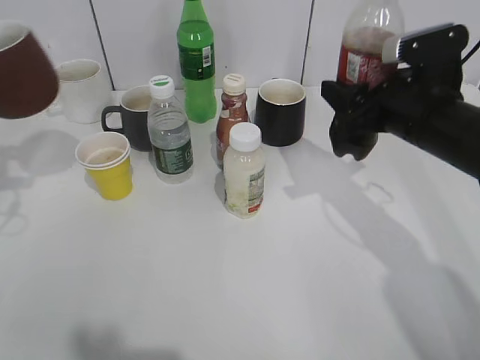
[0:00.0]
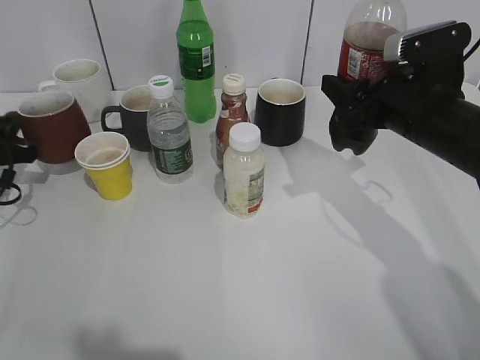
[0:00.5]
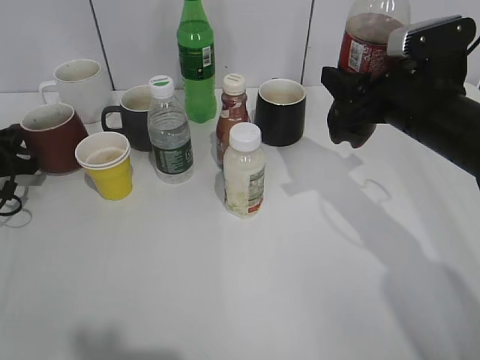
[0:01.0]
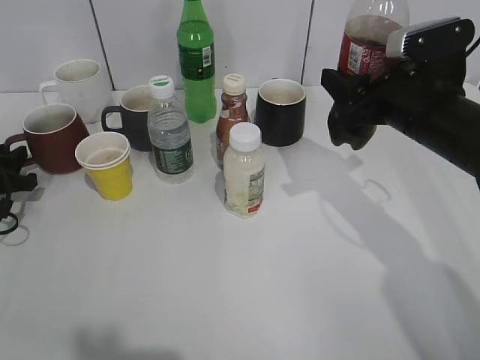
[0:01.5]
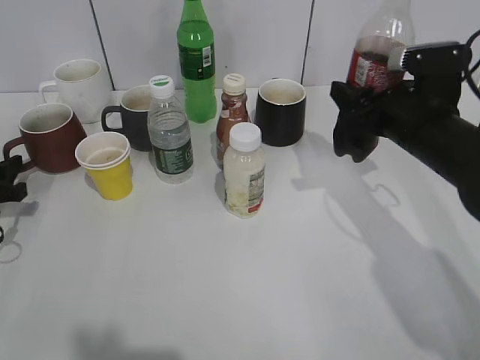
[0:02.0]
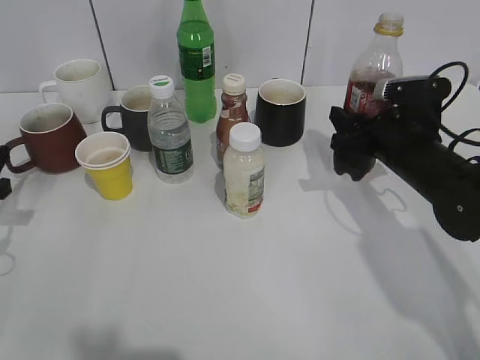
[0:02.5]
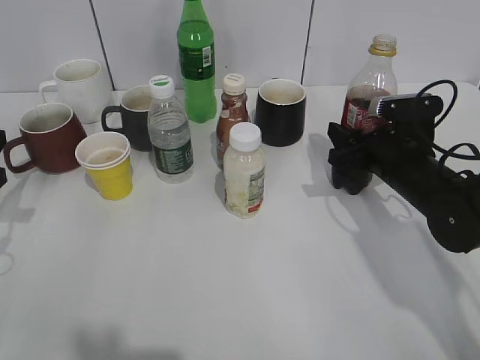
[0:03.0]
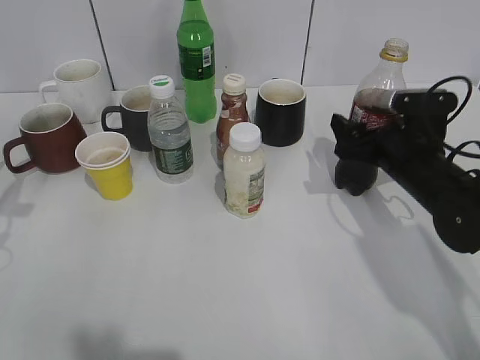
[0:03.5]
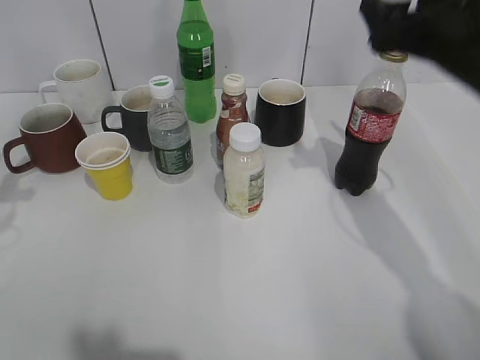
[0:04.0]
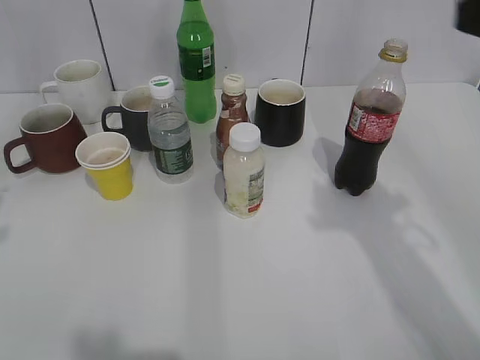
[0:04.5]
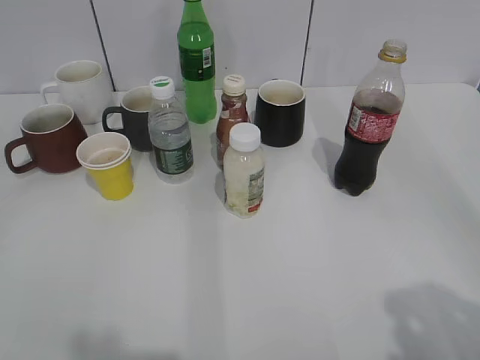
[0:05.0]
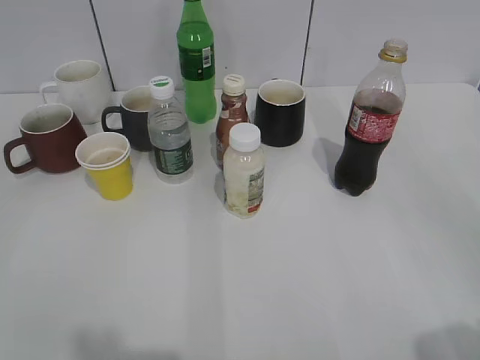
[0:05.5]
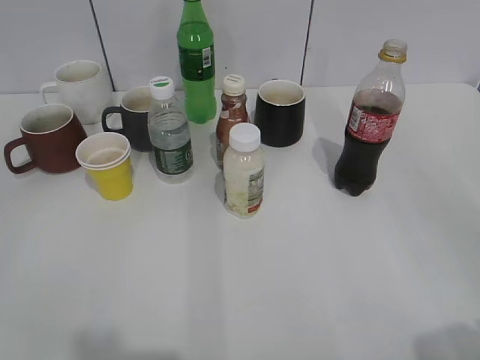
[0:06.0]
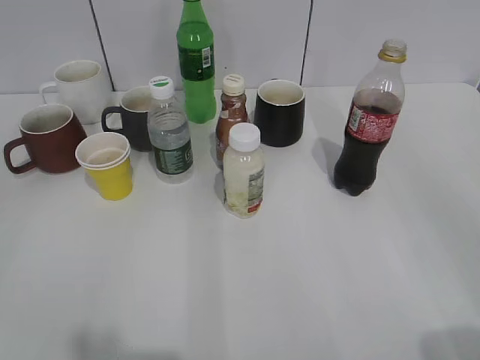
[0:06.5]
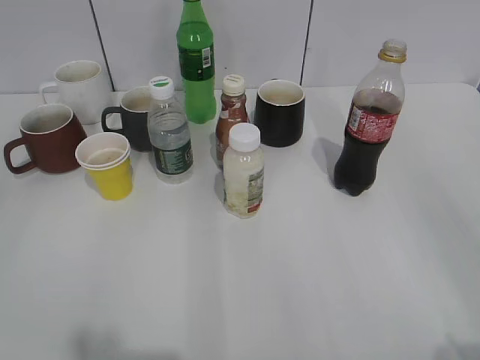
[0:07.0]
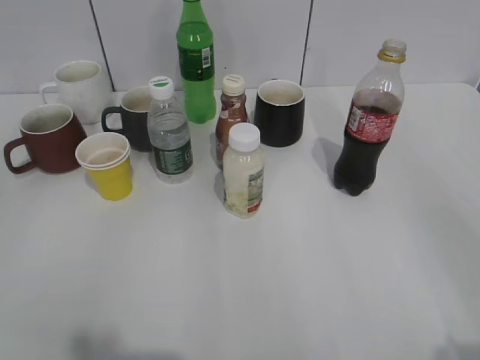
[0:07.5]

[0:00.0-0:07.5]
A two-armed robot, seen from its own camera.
Step, 0:00.0 to 0:03.5: Place the cola bottle on the table with right gripper.
0:00.0 to 0:02.0: The left gripper goes roughly 10 cm downward, and opens up.
0:02.0 to 0:04.0: The left gripper heads upward, covering approximately 15 cm. The right gripper moves upward, some 10 cm.
0:04.0 to 0:05.5: The right gripper heads backward, covering approximately 30 cm.
